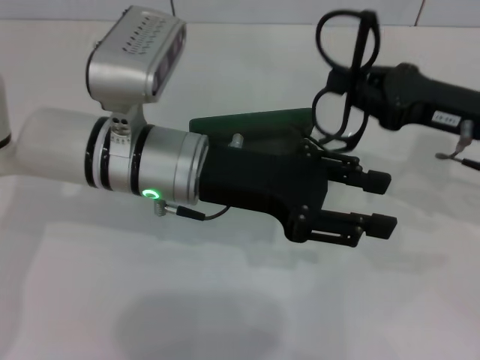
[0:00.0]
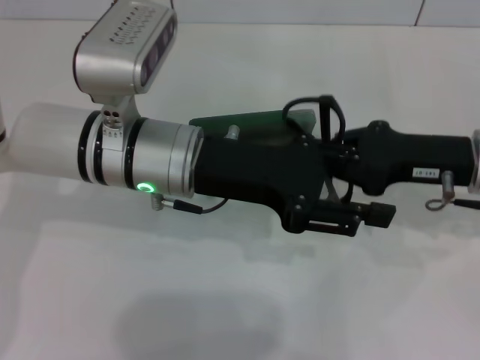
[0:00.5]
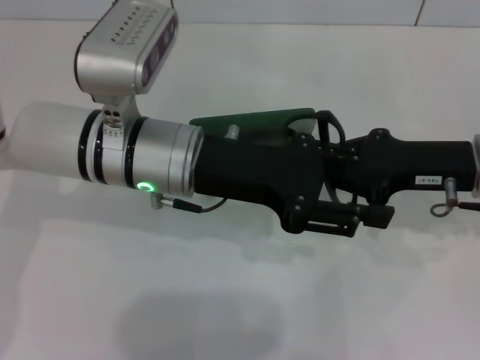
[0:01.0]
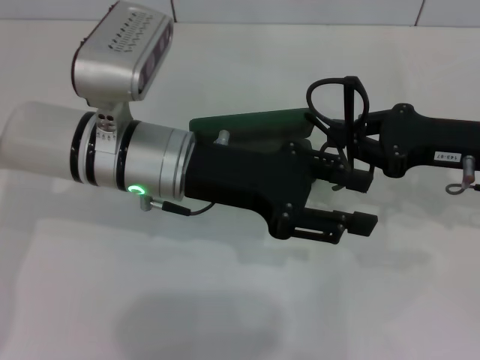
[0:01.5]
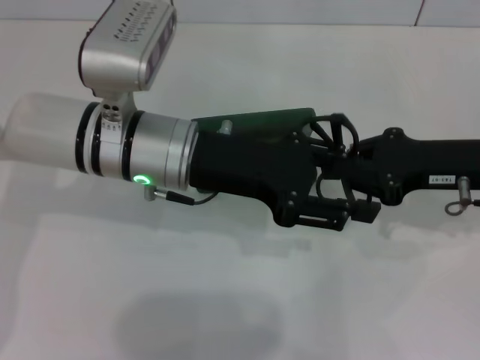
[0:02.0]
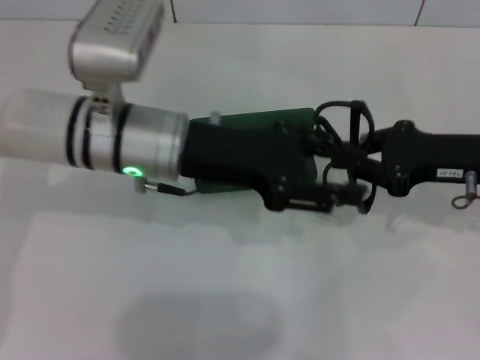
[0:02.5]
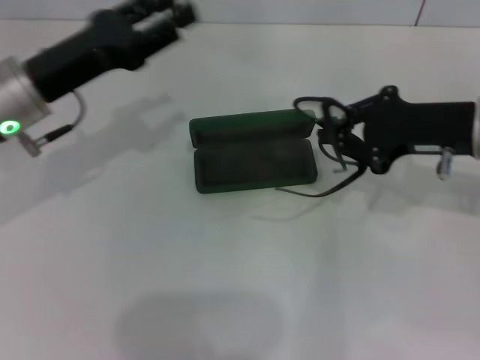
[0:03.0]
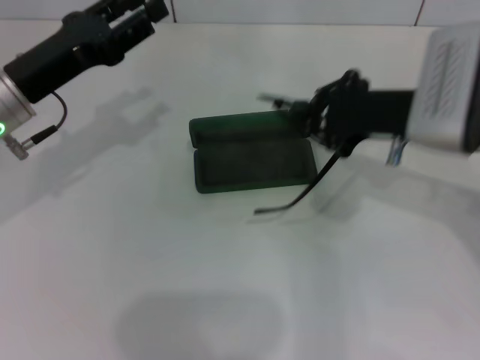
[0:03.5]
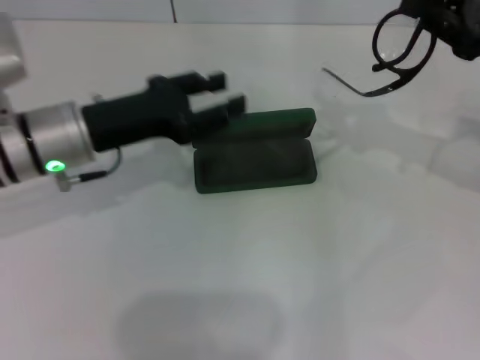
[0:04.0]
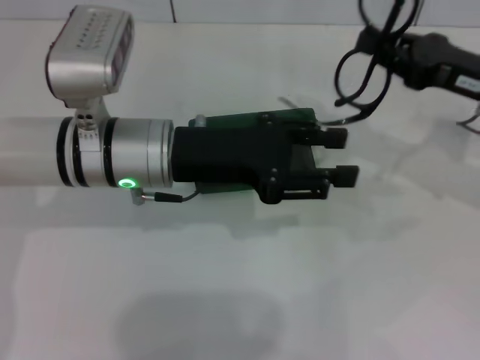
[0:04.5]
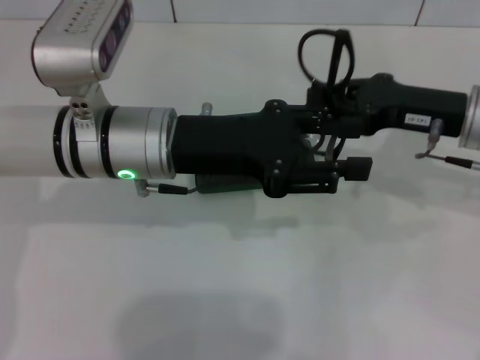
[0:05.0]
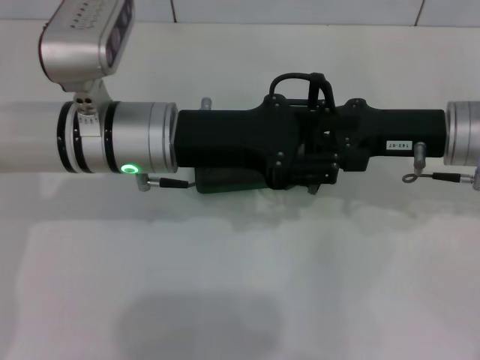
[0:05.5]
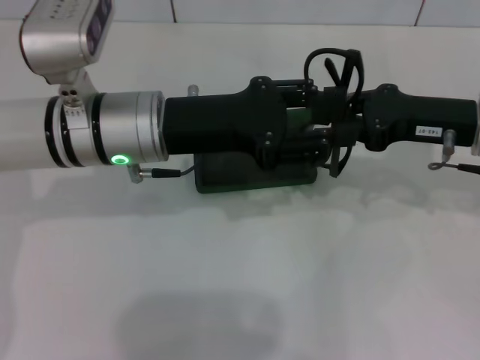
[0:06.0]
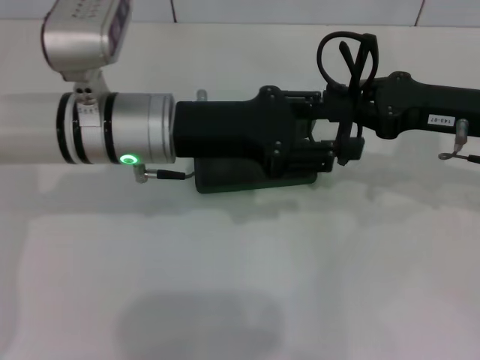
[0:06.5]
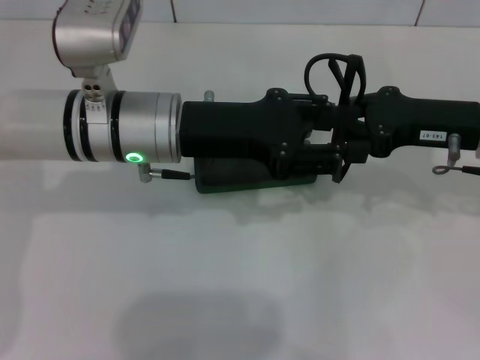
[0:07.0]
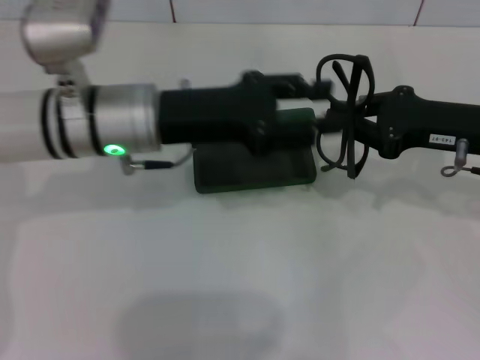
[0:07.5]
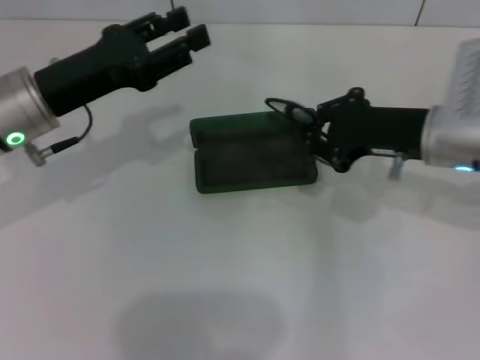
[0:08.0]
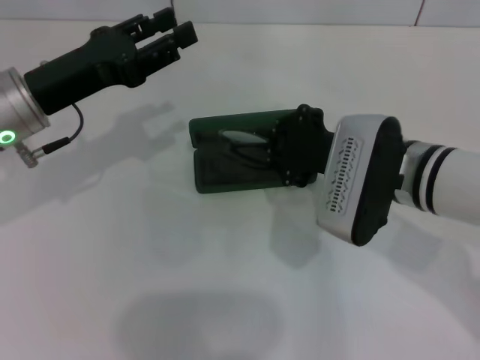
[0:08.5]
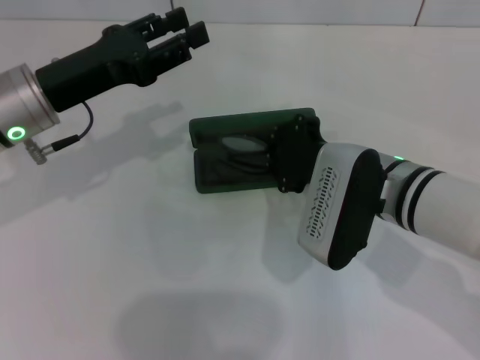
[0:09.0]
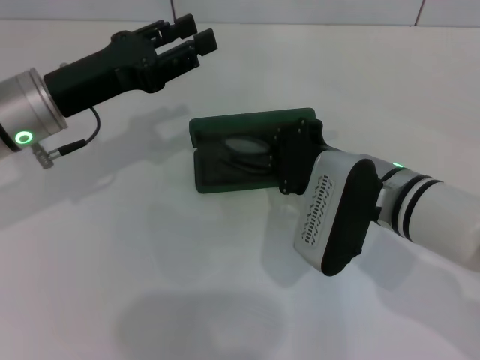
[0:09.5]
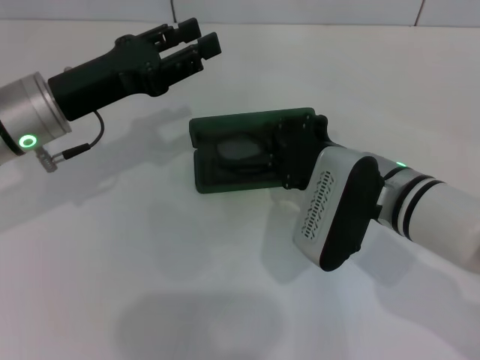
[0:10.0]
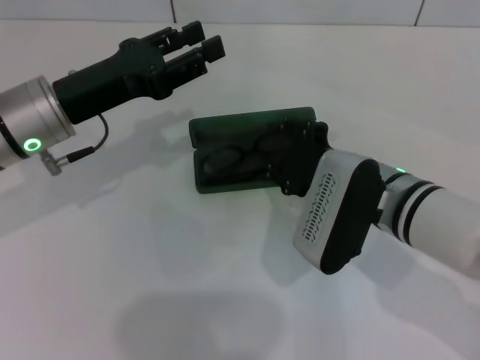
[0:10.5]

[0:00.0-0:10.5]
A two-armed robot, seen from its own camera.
Step, 0:00.0 to 0:06.0: Fold the frame with your left hand.
Step, 0:06.5 to 0:10.0: Put the glasses into the case with your right hand.
0:02.0 to 0:04.0: The right gripper moves upward, some 5 cm; the left gripper goes roughly 10 cm to the left.
0:04.0 to 0:06.5: The right gripper travels to the left by approximately 5 cm; the left gripper heads to the right, covering roughly 10 cm.
0:06.5 to 0:08.5: Both grippers travel together to the left, about 10 cm.
0:08.5 to 0:10.5: The right gripper opens.

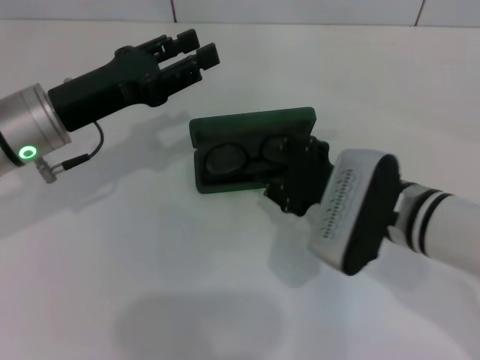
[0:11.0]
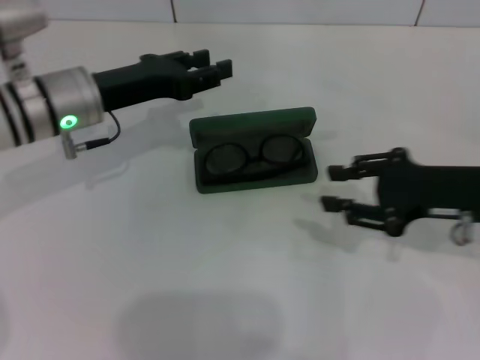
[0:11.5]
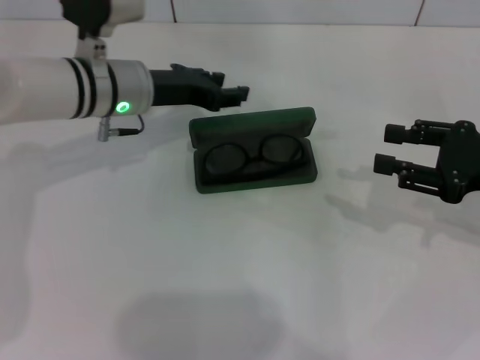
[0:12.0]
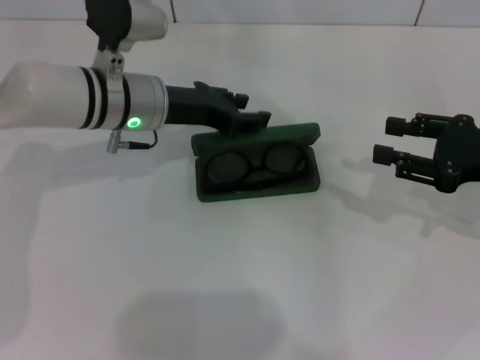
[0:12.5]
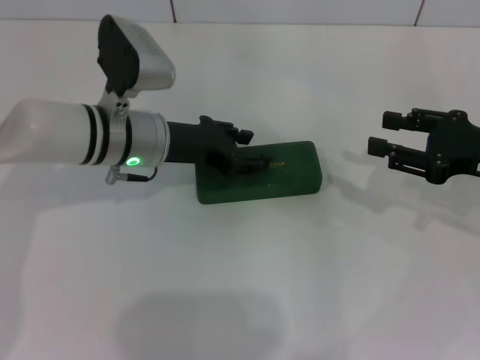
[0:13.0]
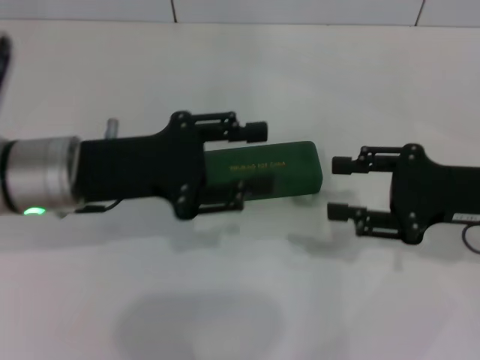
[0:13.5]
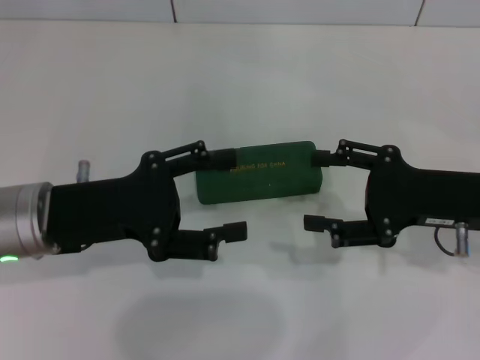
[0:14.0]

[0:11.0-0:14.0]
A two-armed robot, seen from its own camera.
Step, 0:11.0 to 0:13.0: Close the glasses case with your left hand.
0:11.0 to 0:12.5: The right gripper moves to the right, some 15 cm, while the left gripper is displaced to the right and forward by roughly 10 cm.
0:12.5 to 0:14.0: The right gripper goes about 5 cm to the left, and opens. Meanwhile the left gripper heads backward and to the left, covering approximately 15 cm, and opens up.

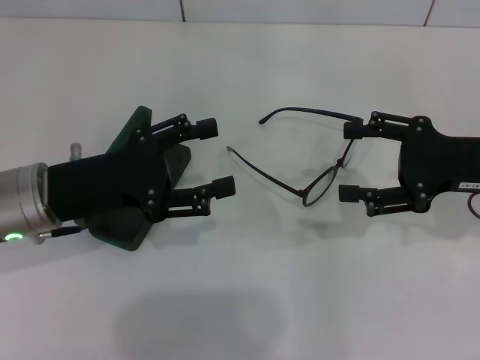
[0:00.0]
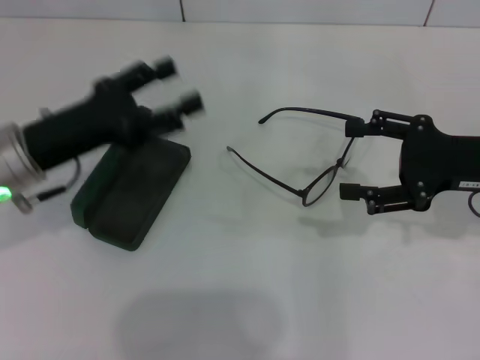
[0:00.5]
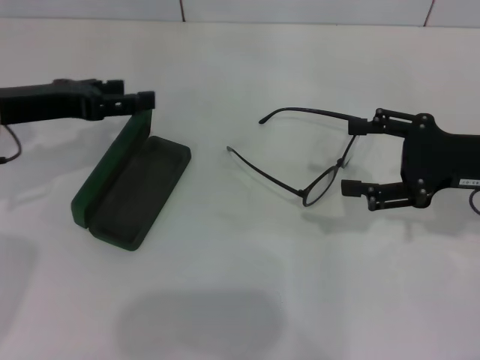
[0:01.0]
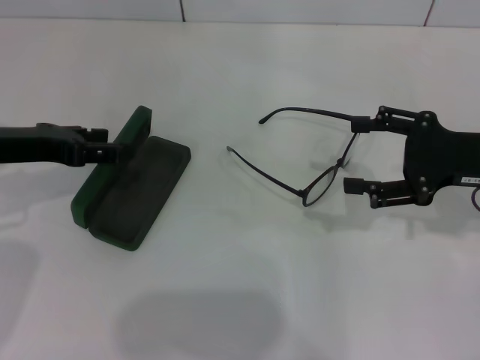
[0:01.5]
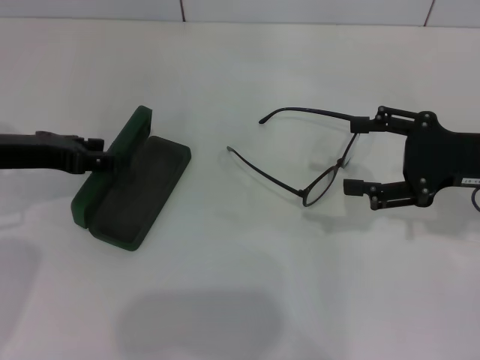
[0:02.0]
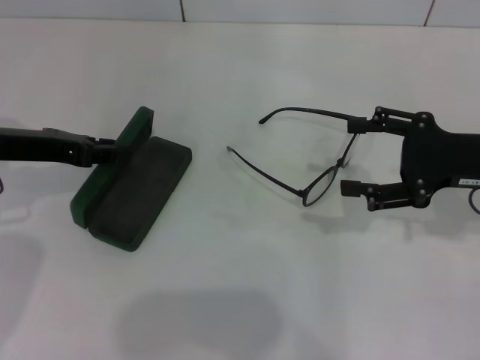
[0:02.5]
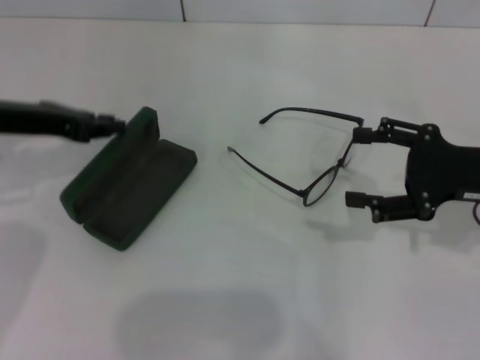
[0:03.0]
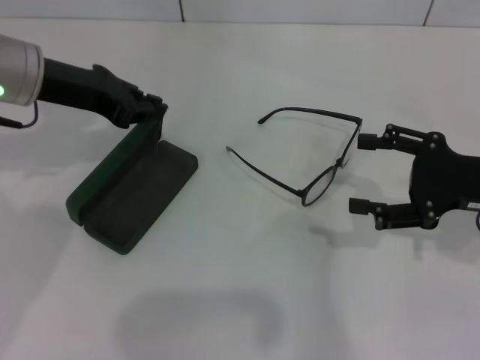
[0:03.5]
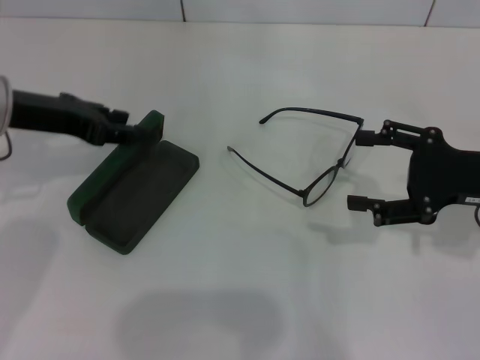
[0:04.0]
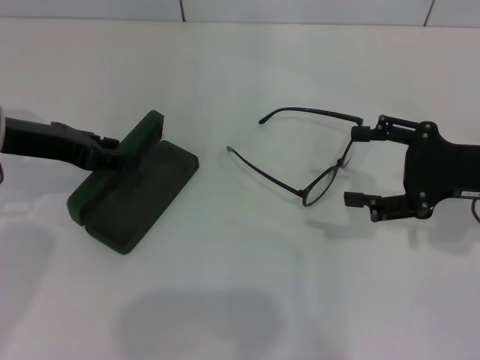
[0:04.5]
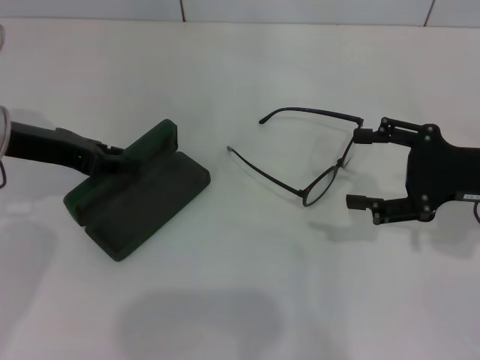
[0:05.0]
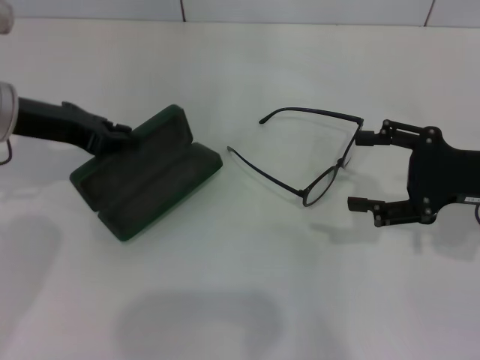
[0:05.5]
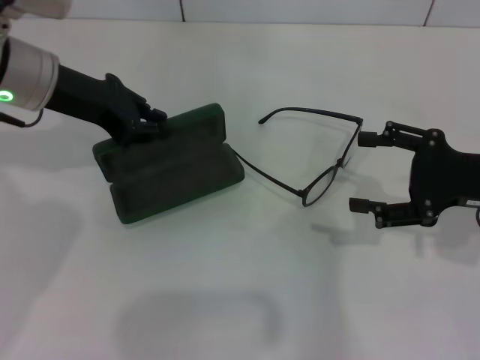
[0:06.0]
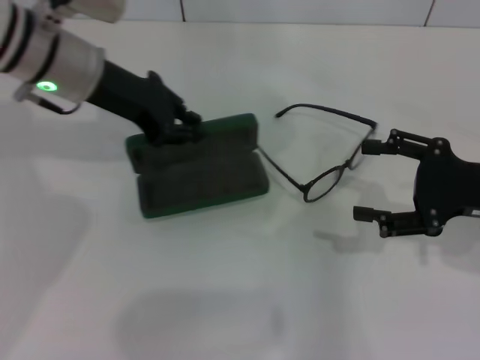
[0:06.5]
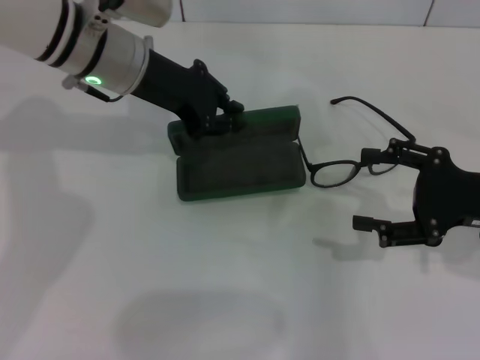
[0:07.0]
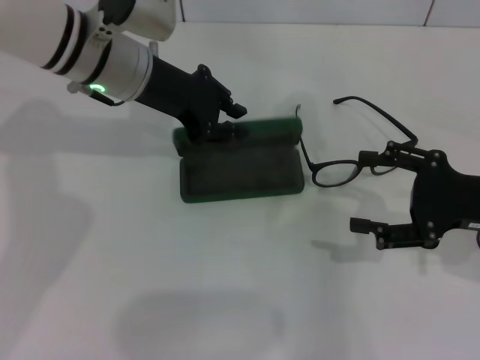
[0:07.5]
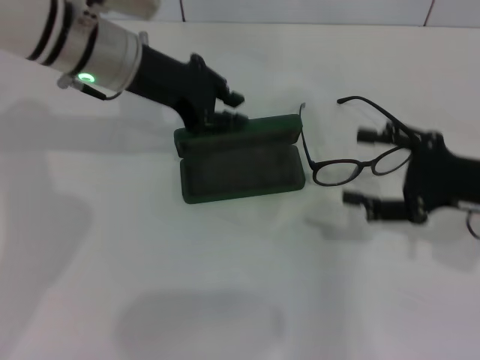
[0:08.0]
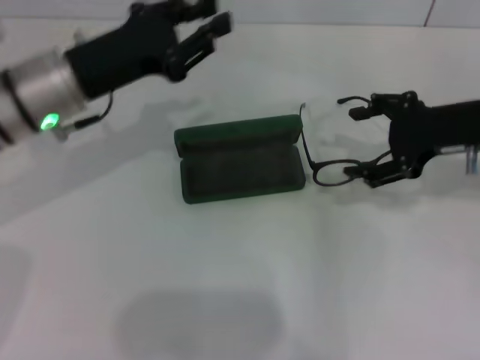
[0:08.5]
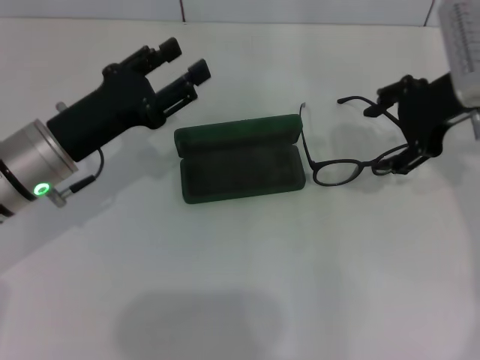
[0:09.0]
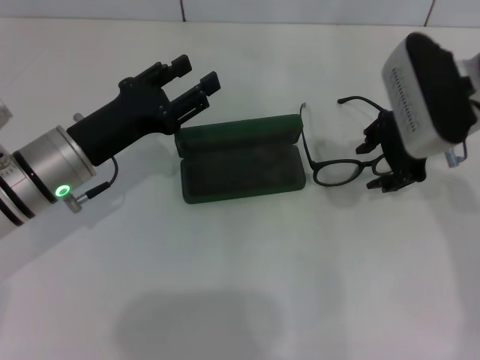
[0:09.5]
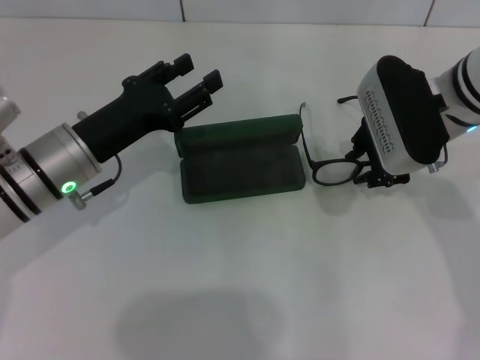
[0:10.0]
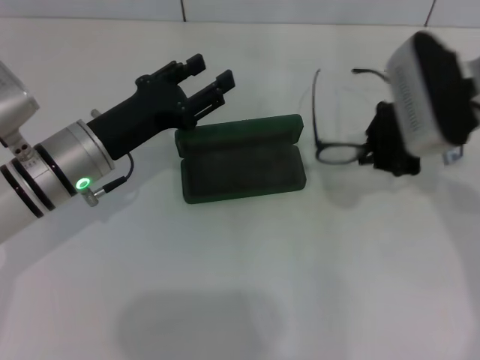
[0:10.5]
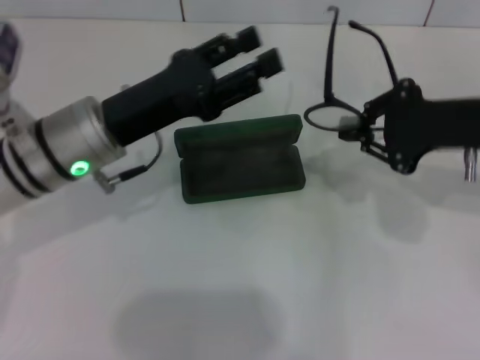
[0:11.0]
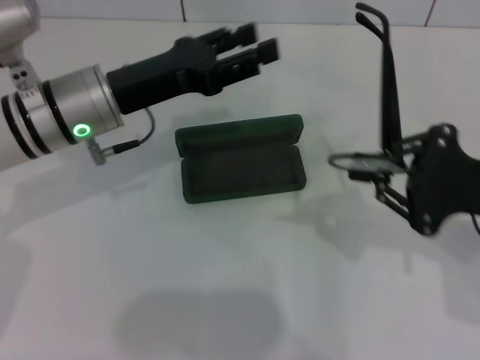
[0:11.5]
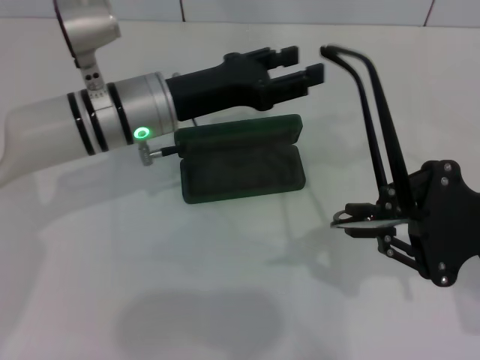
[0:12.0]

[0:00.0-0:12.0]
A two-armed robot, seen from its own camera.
Step, 0:00.0 to 0:04.0: Grab the glasses case with your left hand.
Step, 0:04.5 to 0:07.5: Place the glasses case in the center of the table with your left hand.
Step, 0:08.0 to 0:10.0: Grab the eyeglass frame with your right hand.
0:00.0 to 0:02.0: The left gripper is displaced to the left by approximately 5 cm.
0:02.0 to 0:04.0: The left gripper closes its fingers.
0:04.0 to 0:06.0: The left gripper changes place by some 5 cm, and opens and closes again.
0:06.0 to 0:08.0: The left gripper travels to the right by some 5 cm.
0:08.0 to 0:10.0: The right gripper moves to the left, forward and upward, about 15 cm, and closes up. Meanwhile the left gripper is displaced downward and backward by approximately 15 cm, and opens up.
0:10.0 to 0:12.0: The right gripper goes approximately 15 cm backward and to the right, and closes up; the left gripper heads to the right, covering roughly 5 cm.
